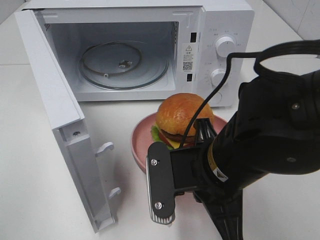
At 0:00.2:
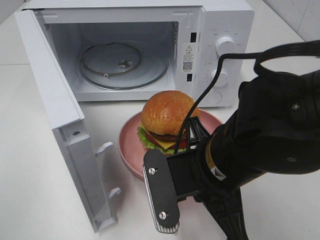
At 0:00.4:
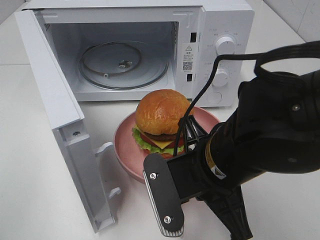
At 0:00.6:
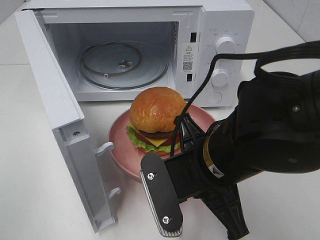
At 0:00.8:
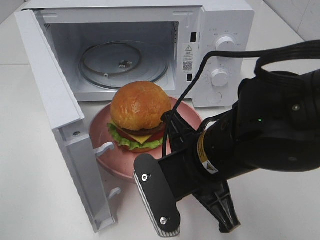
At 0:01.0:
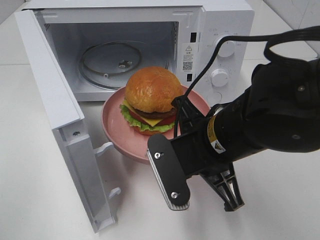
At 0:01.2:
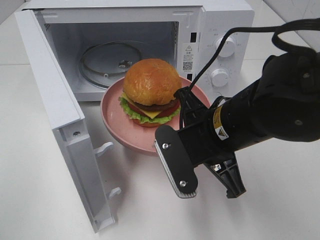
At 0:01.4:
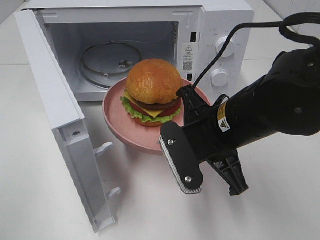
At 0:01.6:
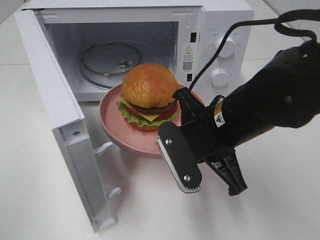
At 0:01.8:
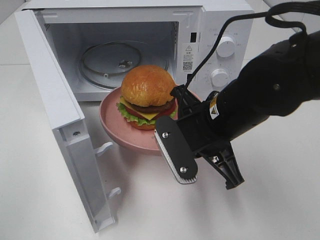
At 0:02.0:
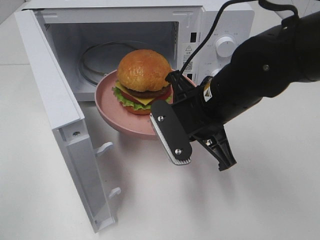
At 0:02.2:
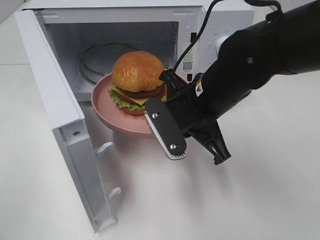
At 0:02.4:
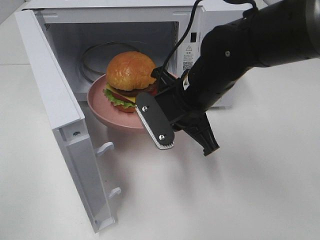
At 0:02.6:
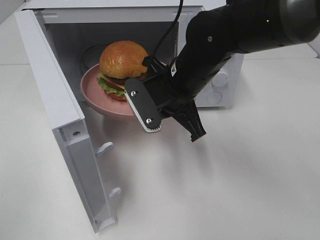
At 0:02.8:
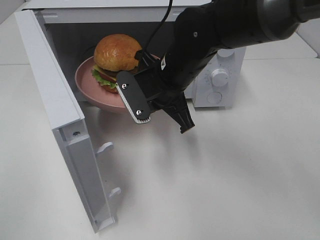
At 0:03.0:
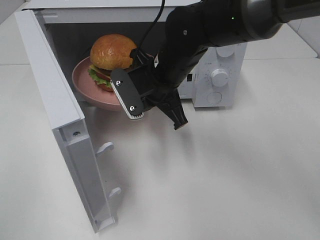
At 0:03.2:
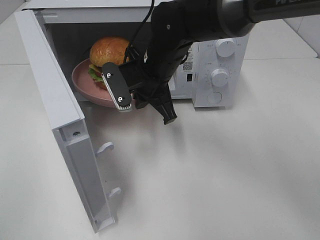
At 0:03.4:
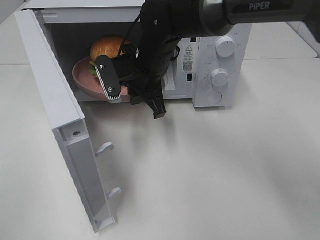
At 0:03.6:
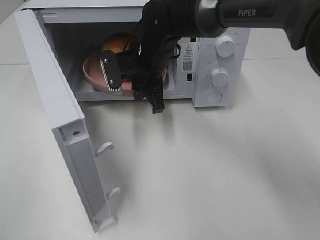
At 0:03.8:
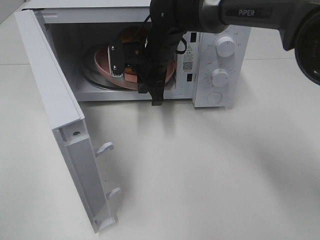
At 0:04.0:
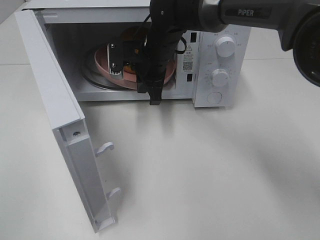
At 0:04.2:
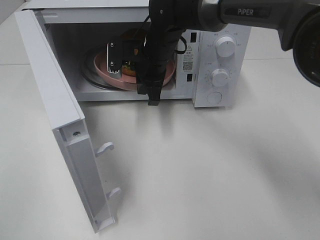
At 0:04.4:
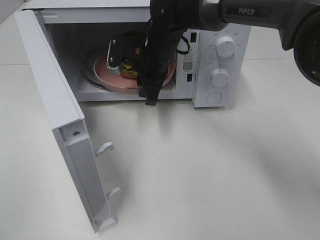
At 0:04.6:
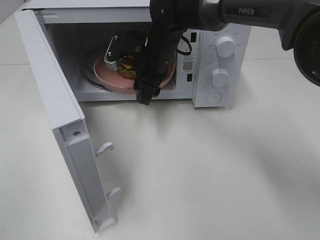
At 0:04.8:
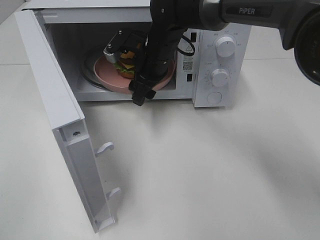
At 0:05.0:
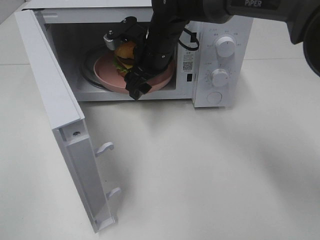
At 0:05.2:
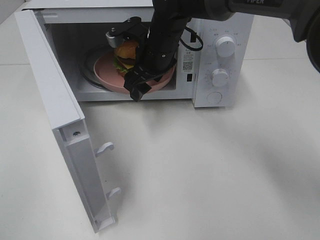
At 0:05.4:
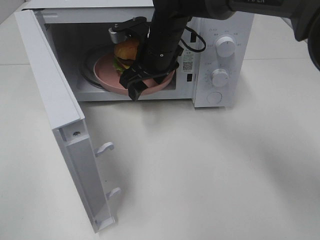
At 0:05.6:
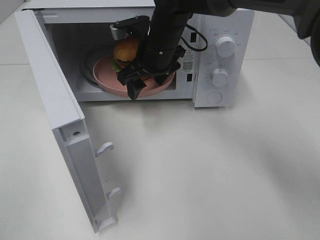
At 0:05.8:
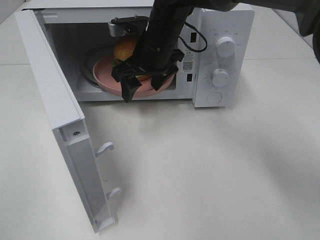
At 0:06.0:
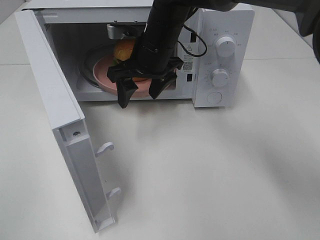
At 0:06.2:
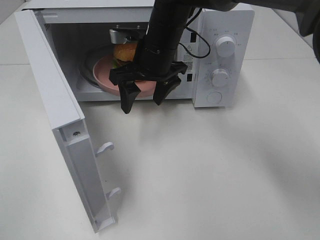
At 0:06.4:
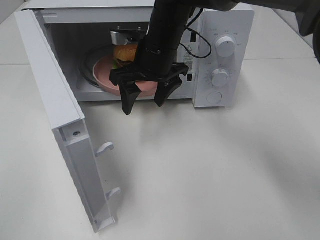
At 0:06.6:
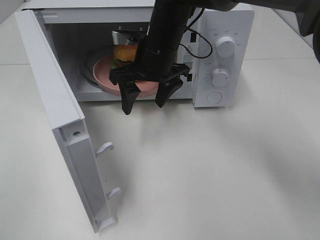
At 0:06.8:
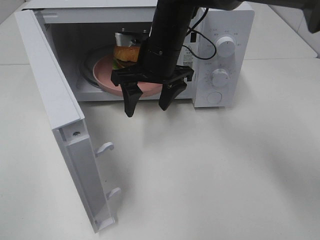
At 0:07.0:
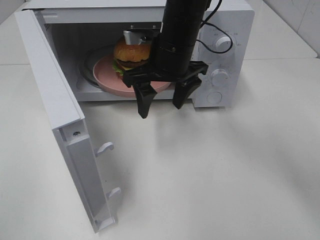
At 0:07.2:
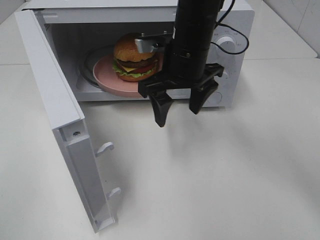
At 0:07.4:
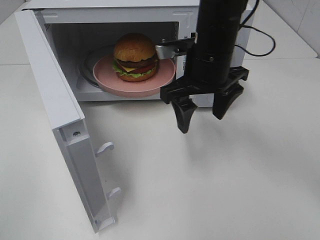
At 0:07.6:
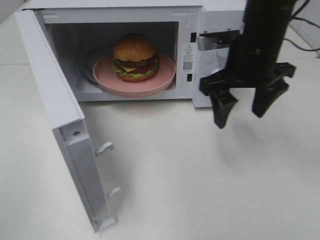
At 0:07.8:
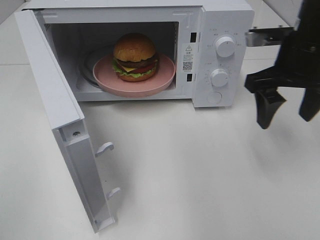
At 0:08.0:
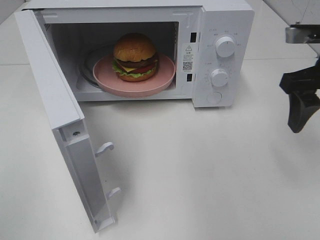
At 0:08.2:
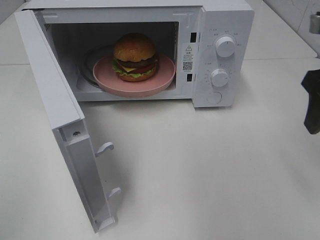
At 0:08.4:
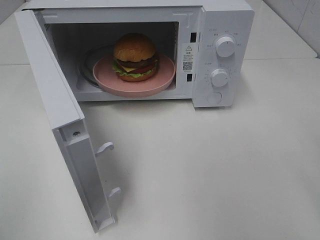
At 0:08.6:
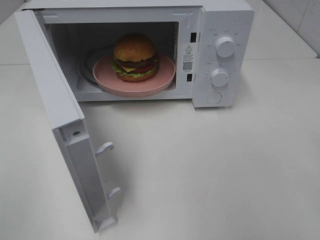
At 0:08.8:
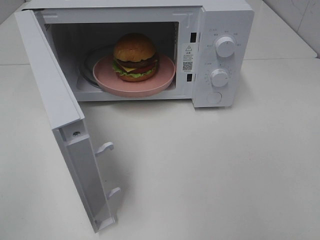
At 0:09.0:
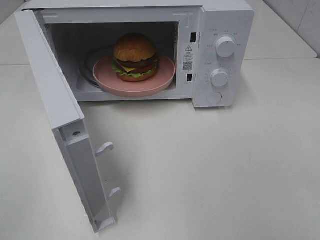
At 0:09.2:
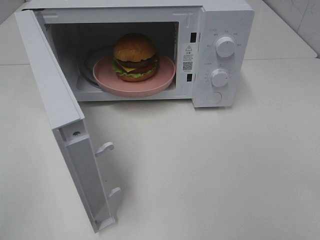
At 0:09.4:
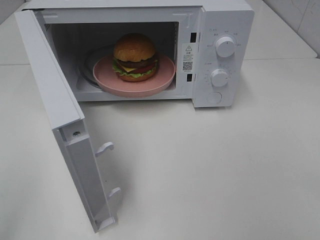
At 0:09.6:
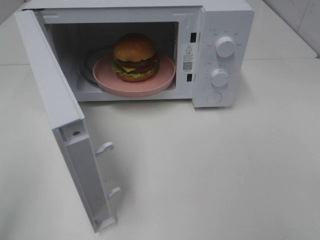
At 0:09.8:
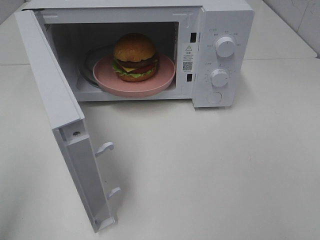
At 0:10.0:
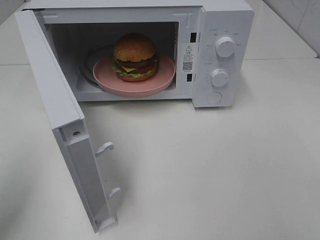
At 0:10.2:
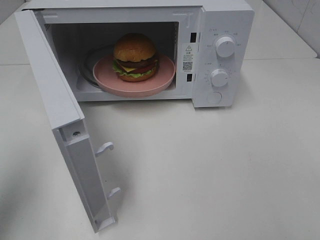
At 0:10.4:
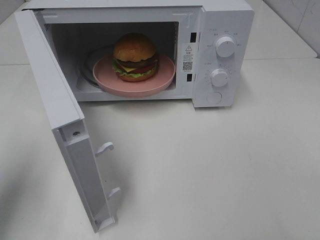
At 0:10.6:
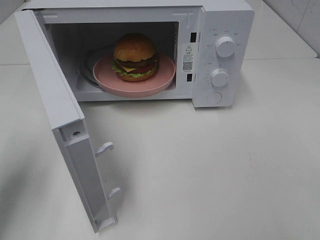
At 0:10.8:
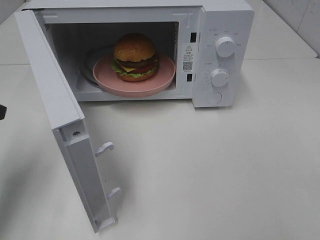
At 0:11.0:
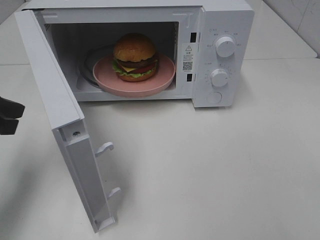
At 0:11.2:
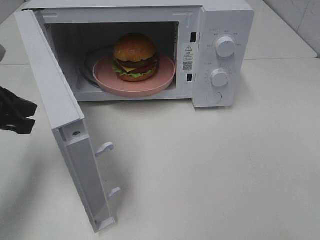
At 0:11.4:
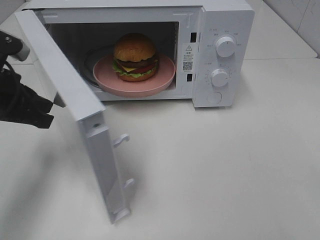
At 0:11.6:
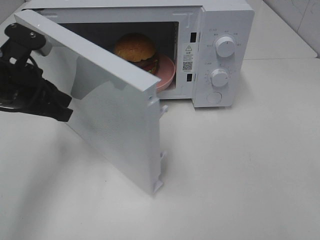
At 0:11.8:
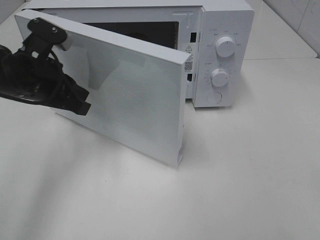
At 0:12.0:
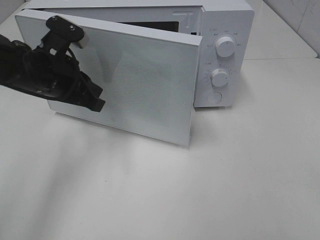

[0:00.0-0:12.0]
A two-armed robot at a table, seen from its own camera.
Task of the whole recording: Heat the burger.
Step, 0:00.0 to 0:04.4: Right hand: place the plate in the microwave.
0:00.0 to 0:01.6: The right gripper goes roughly 5 cm forward.
0:01.6 to 0:03.0: The right gripper moves forward and to the left, some 15 cm.
0:03.0 to 0:04.4: The right gripper heads forward, covering about 10 cm.
0:04.4 to 0:06.0: The right gripper opens up.
0:06.0 to 0:07.6: The right gripper travels to the right and backward by some 15 cm.
0:07.6 to 0:09.0: The right gripper goes roughly 30 cm backward and to the right.
0:09.0 to 0:10.4: The left gripper travels forward by some 20 cm.
0:10.4 to 0:12.0: The left gripper goes about 20 cm forward, to the right and downward.

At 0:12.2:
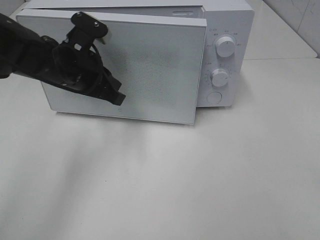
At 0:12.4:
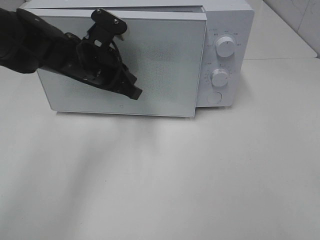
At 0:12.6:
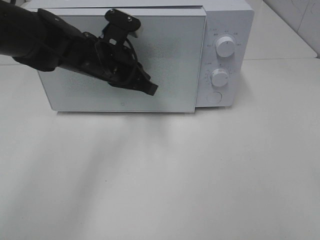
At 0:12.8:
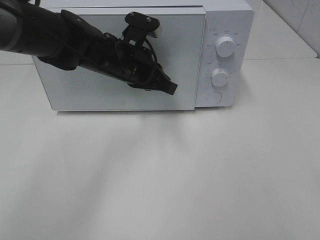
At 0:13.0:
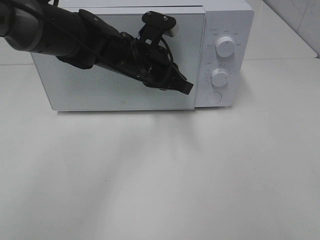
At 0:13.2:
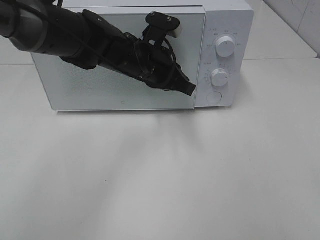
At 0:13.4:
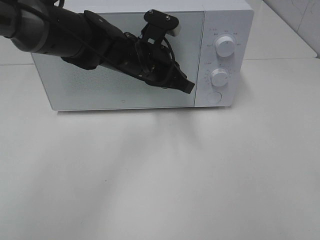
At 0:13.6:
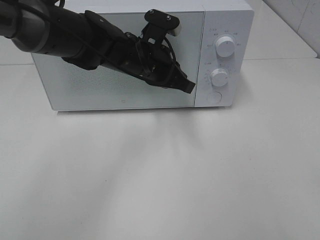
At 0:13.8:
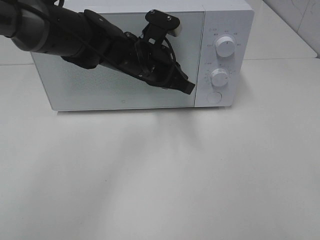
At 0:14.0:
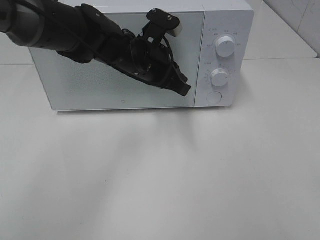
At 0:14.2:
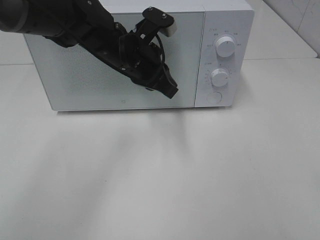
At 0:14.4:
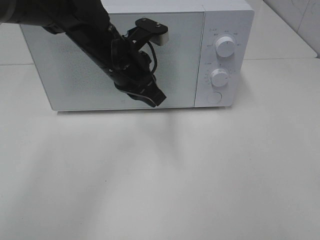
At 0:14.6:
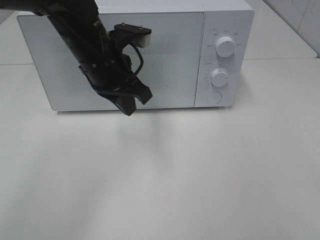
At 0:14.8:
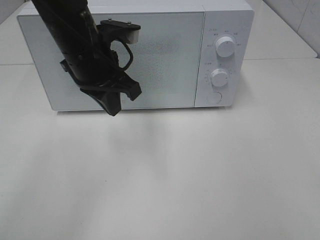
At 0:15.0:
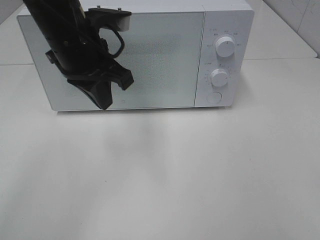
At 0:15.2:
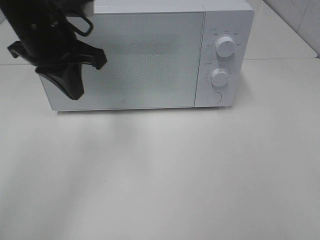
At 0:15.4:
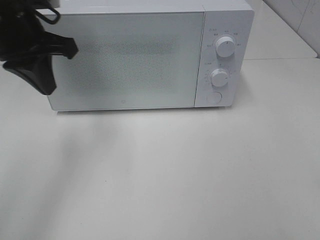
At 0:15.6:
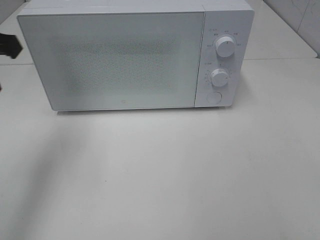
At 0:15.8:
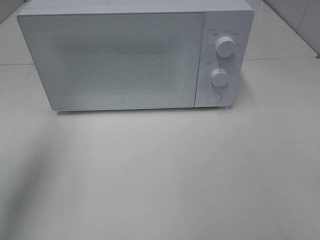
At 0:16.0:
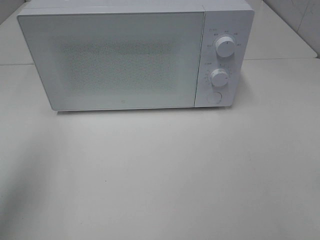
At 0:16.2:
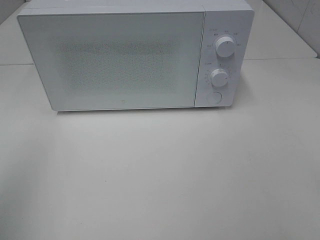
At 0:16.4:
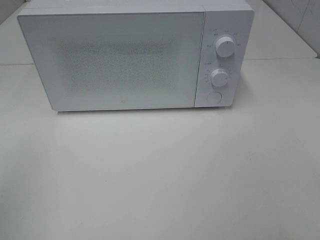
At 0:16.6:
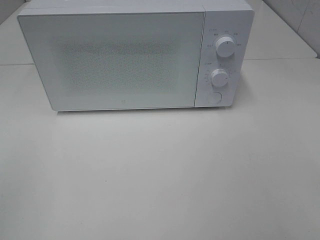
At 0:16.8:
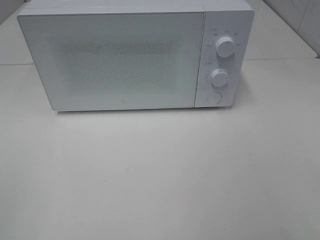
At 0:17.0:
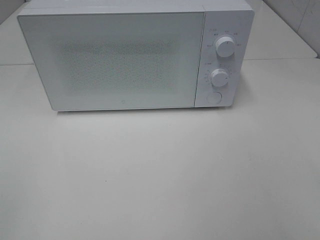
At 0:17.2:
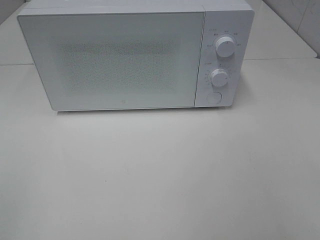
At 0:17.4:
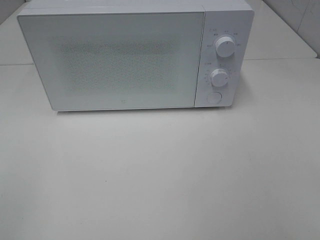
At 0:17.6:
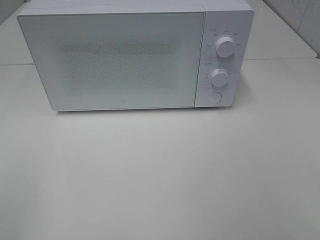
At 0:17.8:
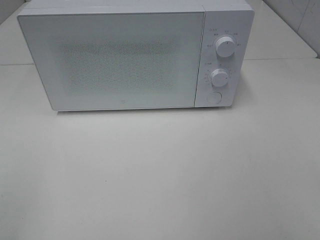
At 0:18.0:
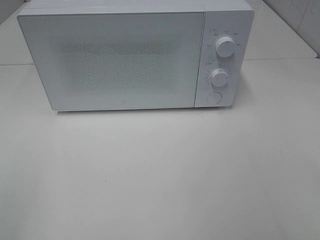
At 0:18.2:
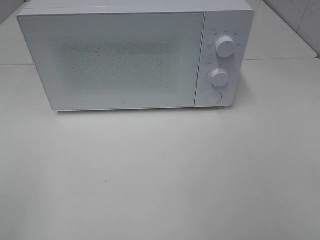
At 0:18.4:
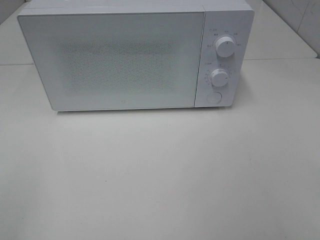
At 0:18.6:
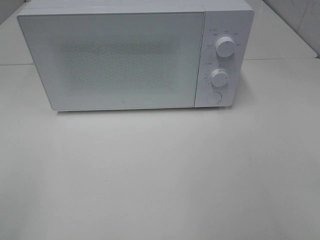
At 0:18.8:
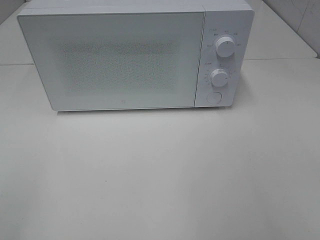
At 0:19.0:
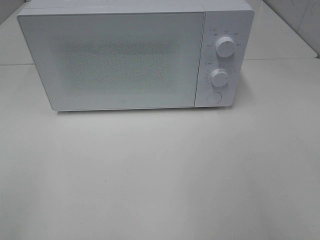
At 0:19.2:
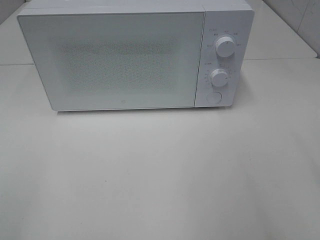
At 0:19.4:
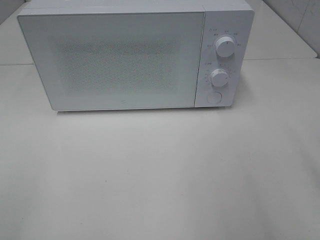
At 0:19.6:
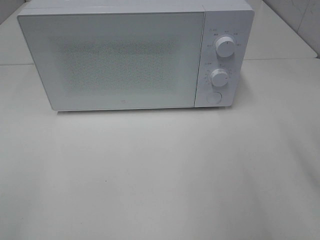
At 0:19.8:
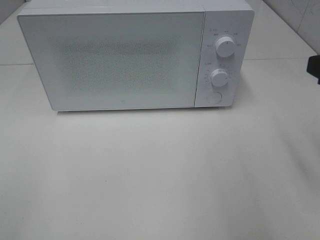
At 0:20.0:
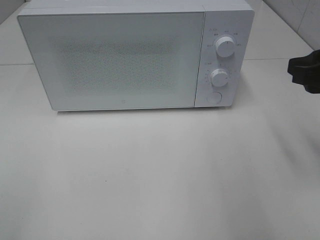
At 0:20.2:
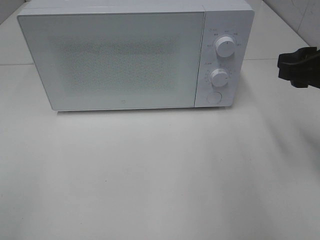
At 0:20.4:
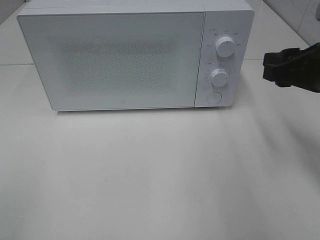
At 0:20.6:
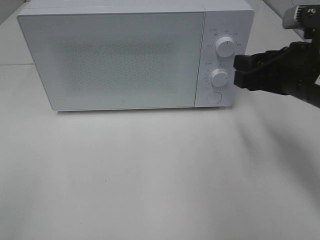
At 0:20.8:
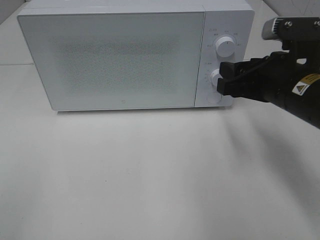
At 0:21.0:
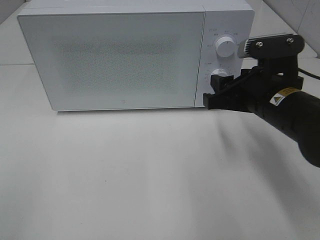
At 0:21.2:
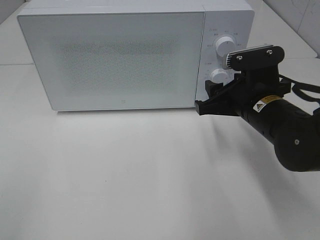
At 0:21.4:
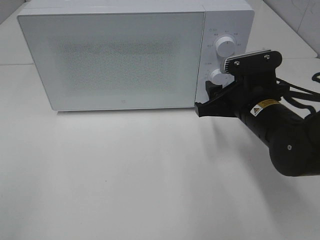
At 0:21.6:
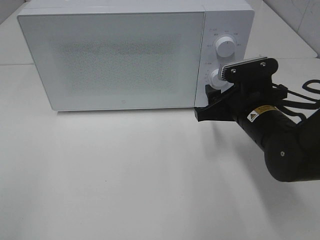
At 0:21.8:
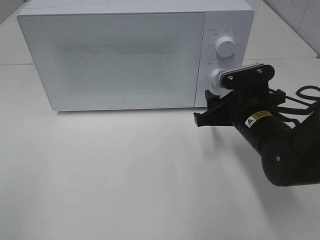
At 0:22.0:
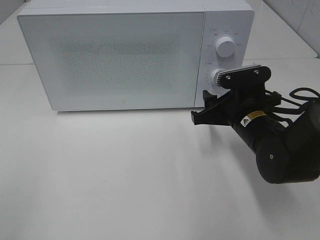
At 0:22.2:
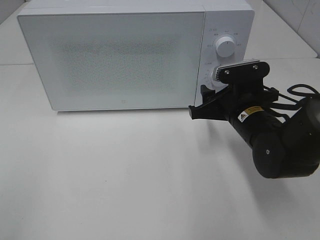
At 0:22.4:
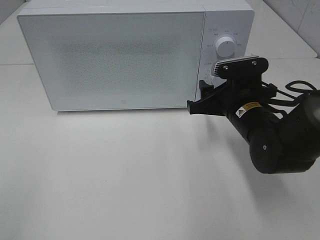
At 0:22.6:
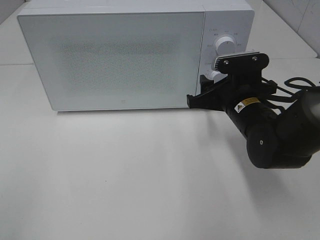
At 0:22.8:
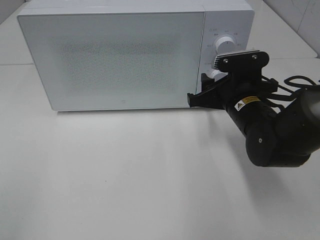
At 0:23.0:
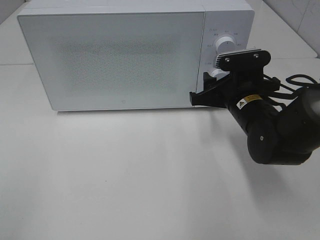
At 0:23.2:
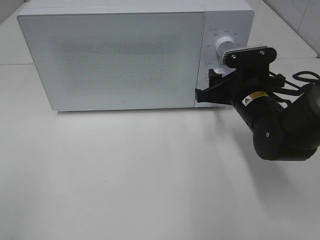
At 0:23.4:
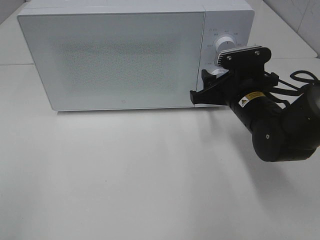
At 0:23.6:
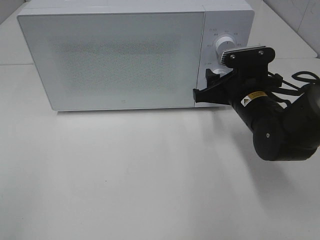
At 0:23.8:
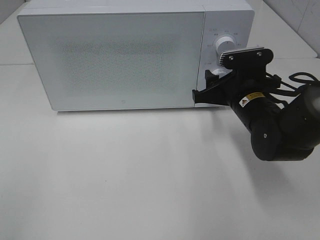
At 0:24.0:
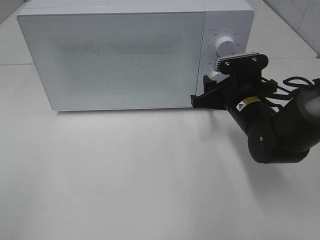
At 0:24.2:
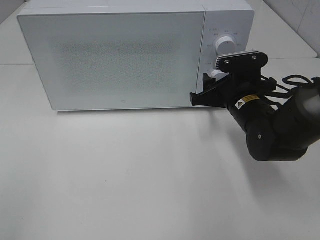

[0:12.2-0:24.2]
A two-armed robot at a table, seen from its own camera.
Task of the whole recording: Heat the burger.
0:12.2 to 0:13.8: The left gripper travels to the right by approximately 10 cm.
0:13.8 to 0:15.2: The left gripper moves to the left, upward and backward, approximately 15 cm.
0:15.2 to 0:16.6: The left gripper moves backward and to the left, some 35 cm.
0:19.8 to 0:21.2: The right gripper is displaced downward, to the left and forward by approximately 20 cm.
0:21.2 to 0:24.2: There are only small adjustments of the grippers.
